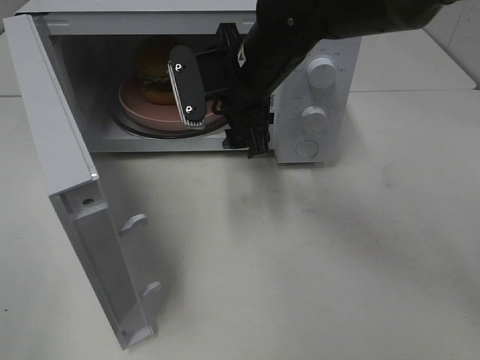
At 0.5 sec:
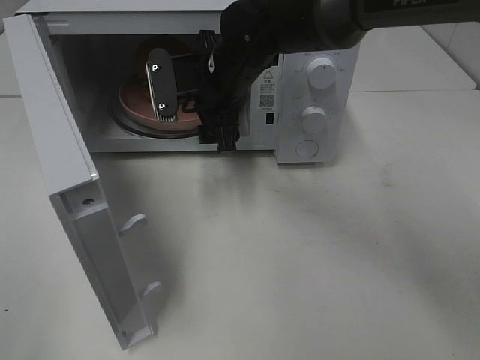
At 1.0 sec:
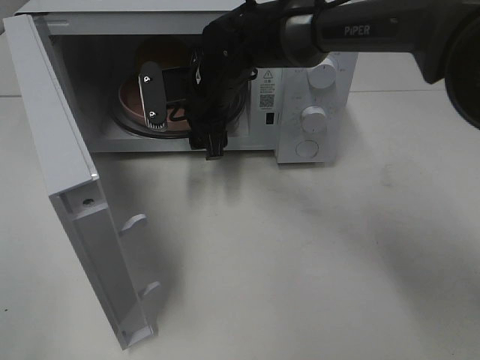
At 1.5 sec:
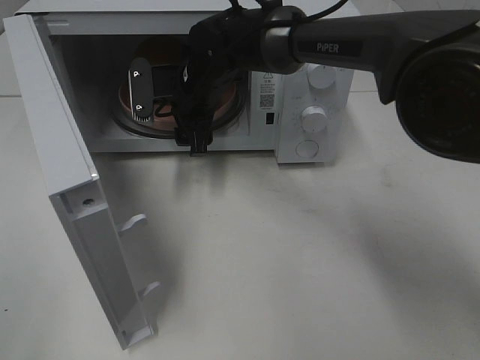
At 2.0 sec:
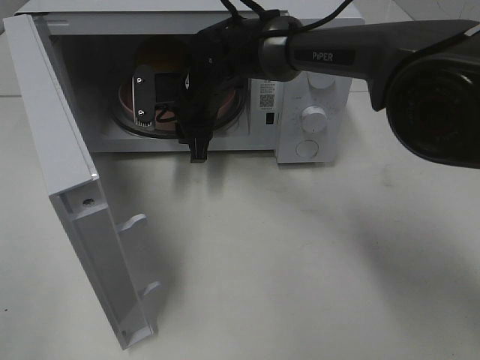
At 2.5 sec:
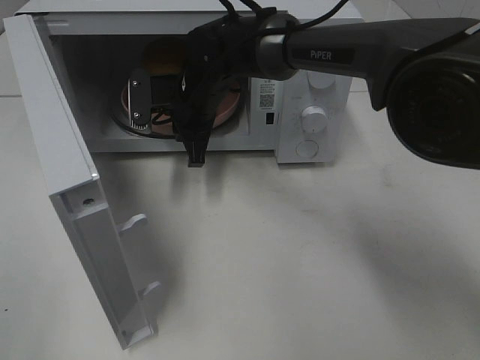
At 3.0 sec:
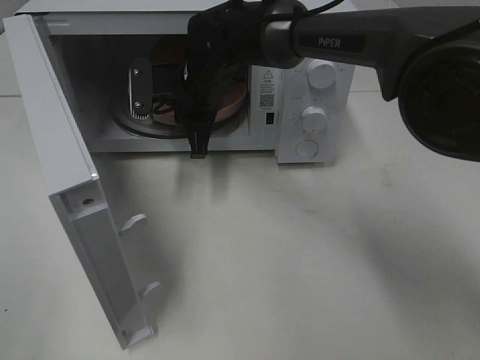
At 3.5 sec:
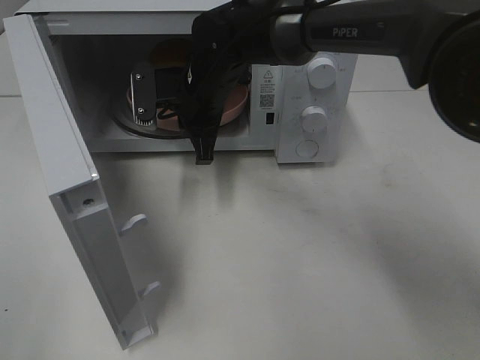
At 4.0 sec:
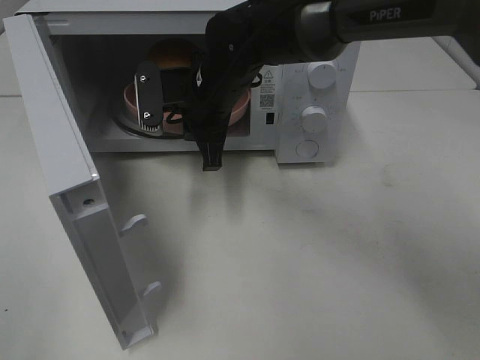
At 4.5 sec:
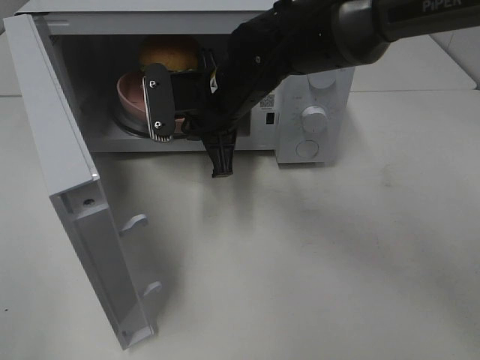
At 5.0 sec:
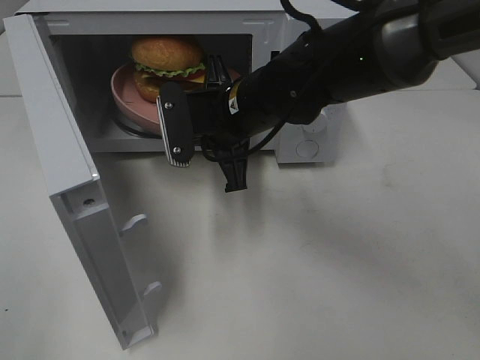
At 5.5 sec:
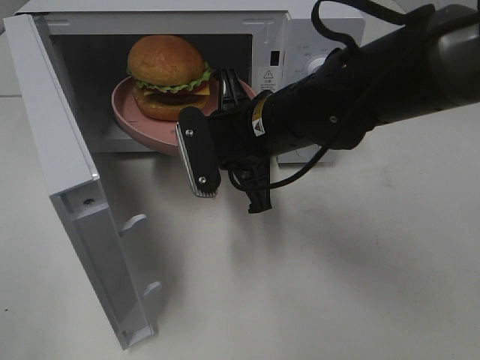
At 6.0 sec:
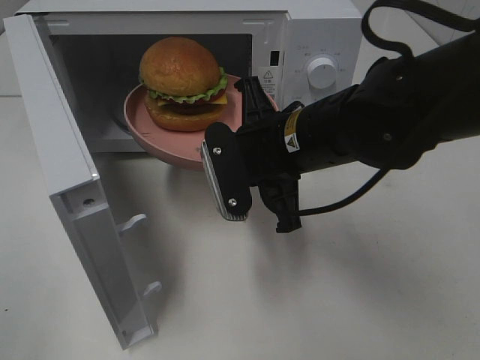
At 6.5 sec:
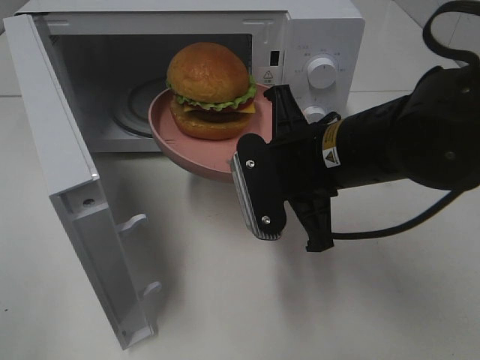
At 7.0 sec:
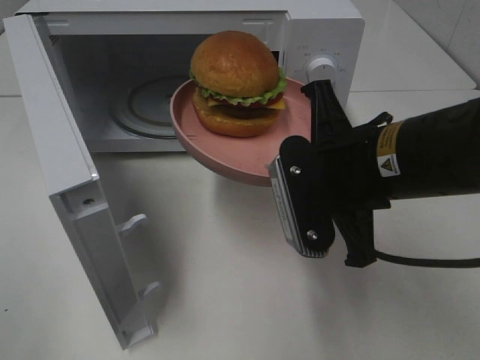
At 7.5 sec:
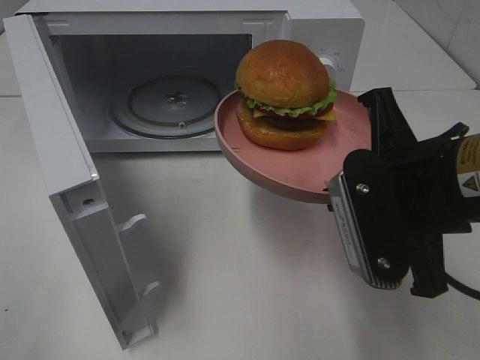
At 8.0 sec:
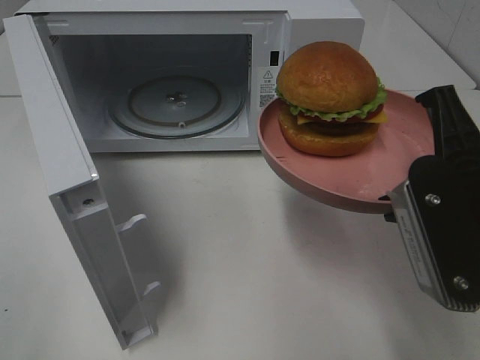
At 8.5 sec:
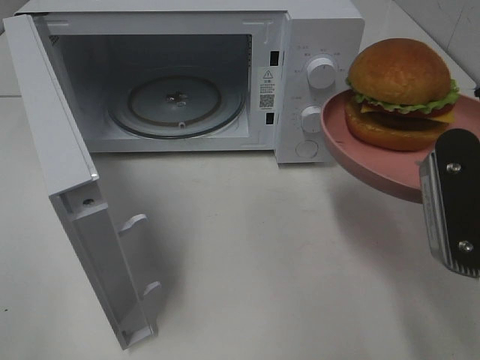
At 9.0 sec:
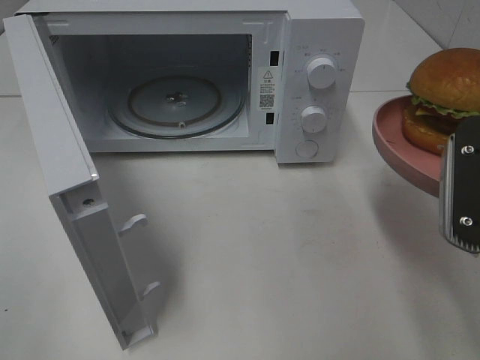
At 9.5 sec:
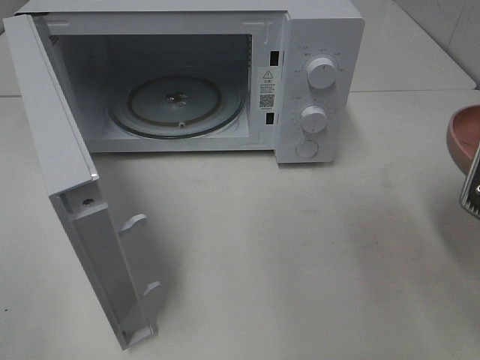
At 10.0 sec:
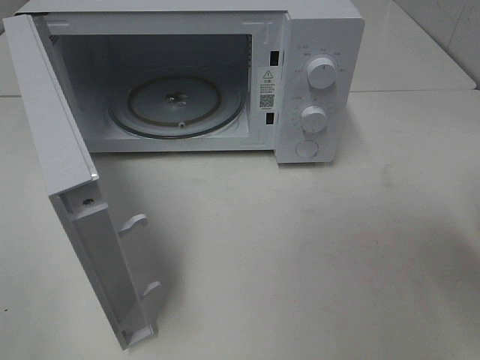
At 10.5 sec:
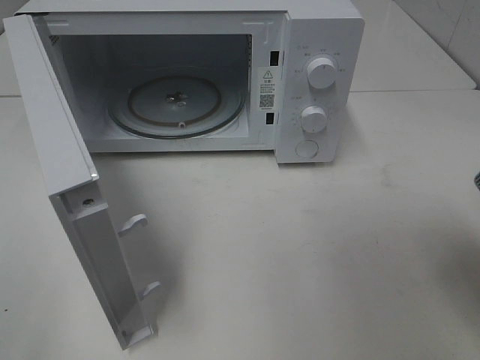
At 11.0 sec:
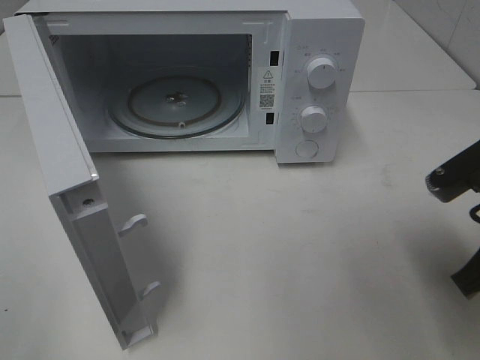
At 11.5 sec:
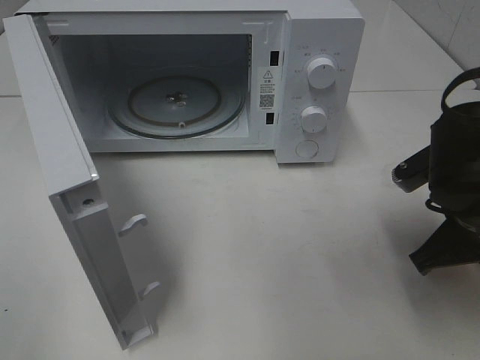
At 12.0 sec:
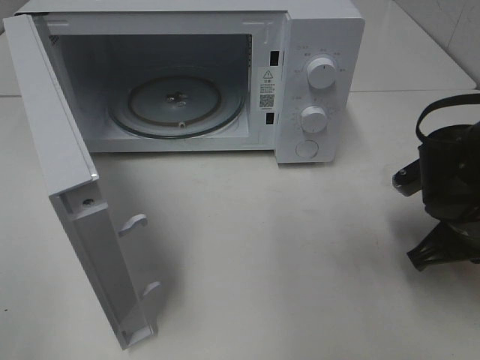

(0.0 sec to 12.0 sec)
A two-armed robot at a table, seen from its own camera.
Task of the whole recording: Heat the burger.
Step, 0.0 sec - 2.5 sec: Right hand: grab the plate with the hamburger.
0.0 sec - 2.0 sec: The right gripper shifts some 10 cm forward, downward and to the left, and closes up.
2.0 sec - 4.0 sec: The right gripper ends up approximately 5 cm from where it was, and closes up.
4.0 sec - 6.0 sec: The right gripper shifts approximately 15 cm backward and to the right.
6.0 sec - 8.0 sec: The right gripper is displaced to the right, backward and upward by some 20 cm.
8.0 sec - 10.0 sec: The right gripper shifts roughly 5 cm to the right.
10.0 sec - 12.0 sec: The right gripper heads downward and forward, covering about 15 cm.

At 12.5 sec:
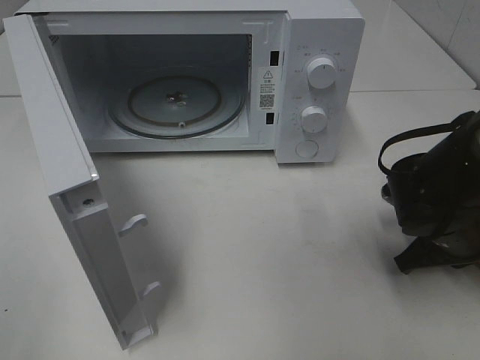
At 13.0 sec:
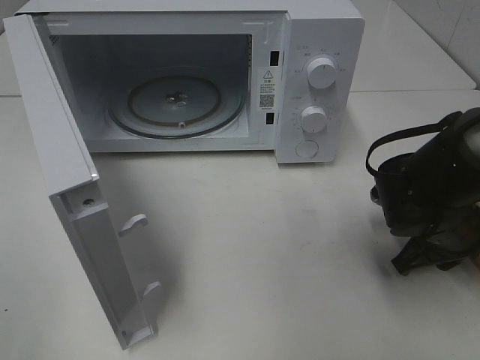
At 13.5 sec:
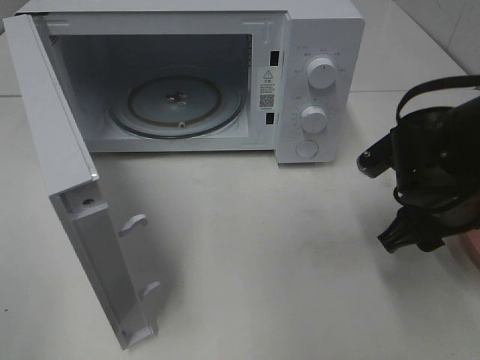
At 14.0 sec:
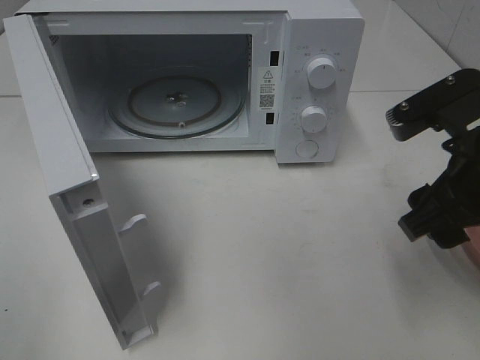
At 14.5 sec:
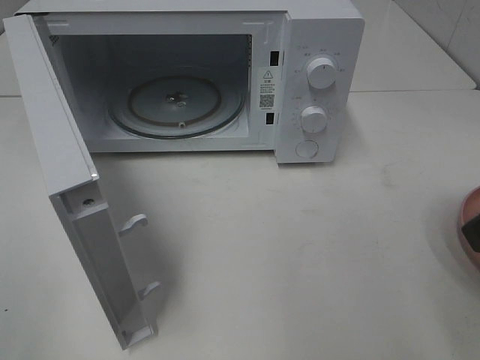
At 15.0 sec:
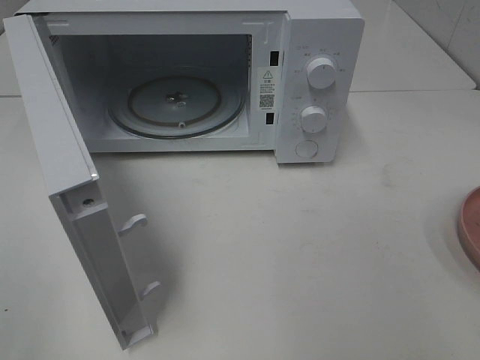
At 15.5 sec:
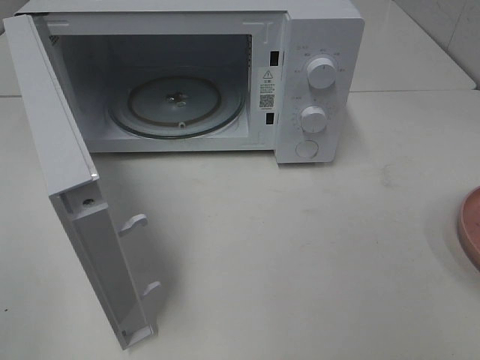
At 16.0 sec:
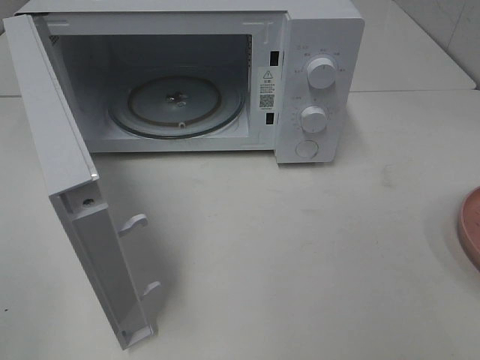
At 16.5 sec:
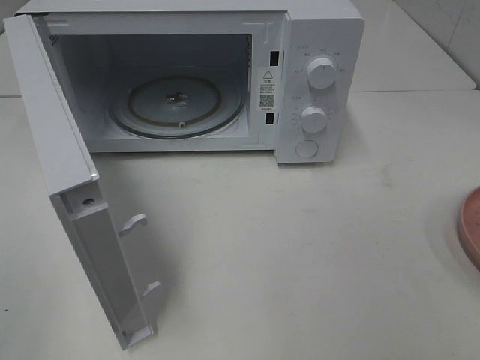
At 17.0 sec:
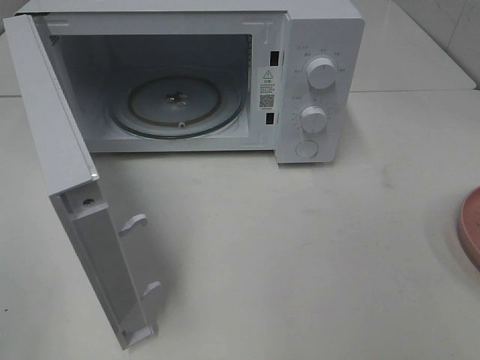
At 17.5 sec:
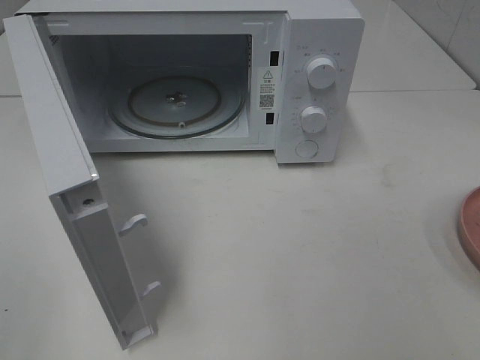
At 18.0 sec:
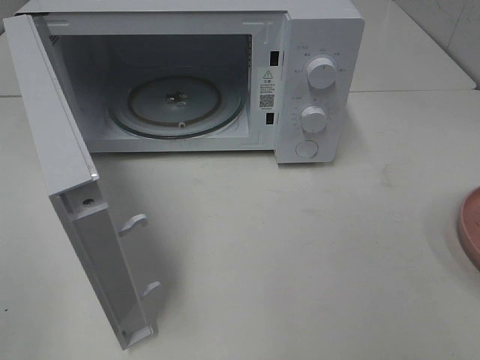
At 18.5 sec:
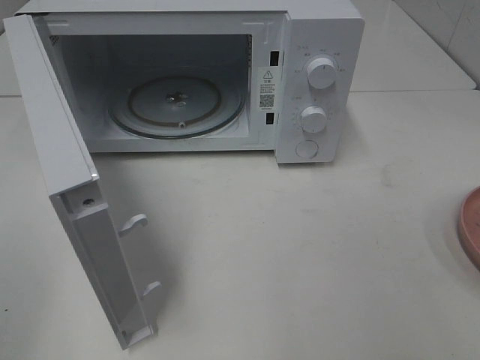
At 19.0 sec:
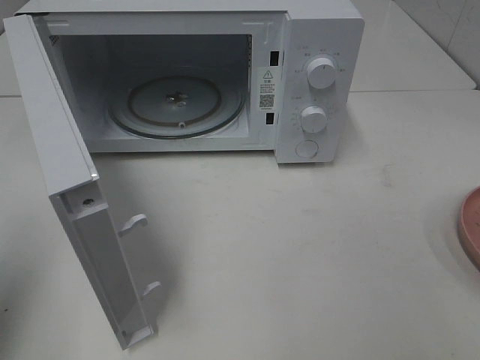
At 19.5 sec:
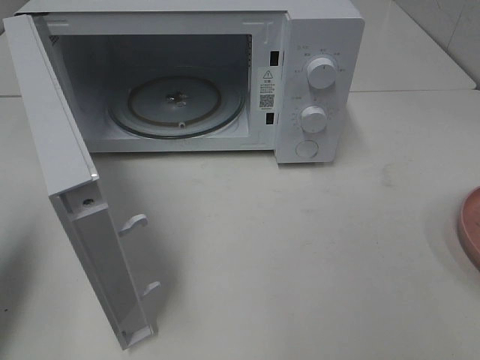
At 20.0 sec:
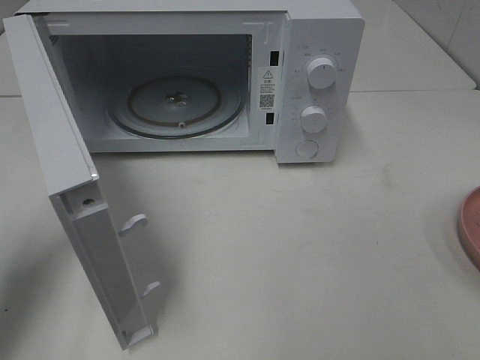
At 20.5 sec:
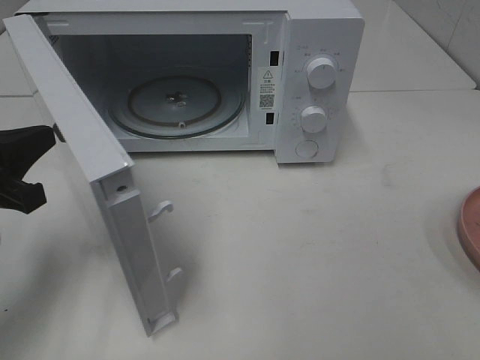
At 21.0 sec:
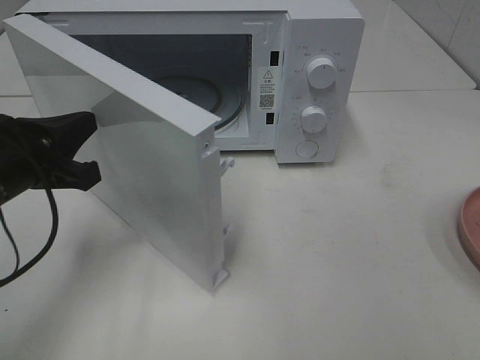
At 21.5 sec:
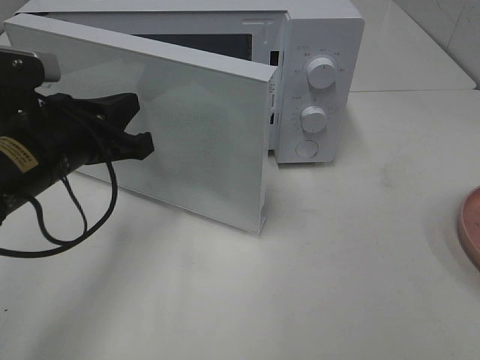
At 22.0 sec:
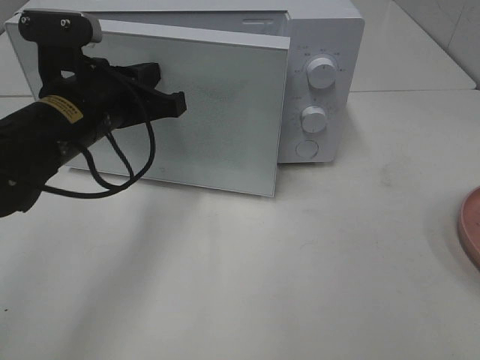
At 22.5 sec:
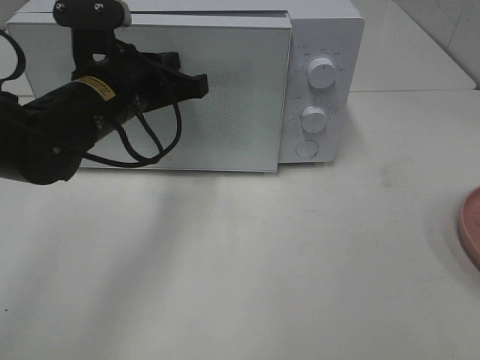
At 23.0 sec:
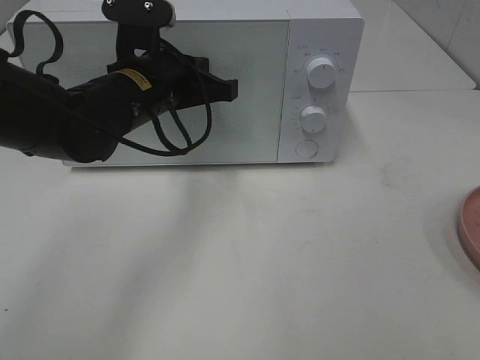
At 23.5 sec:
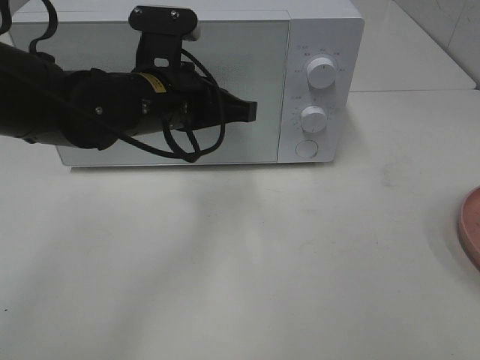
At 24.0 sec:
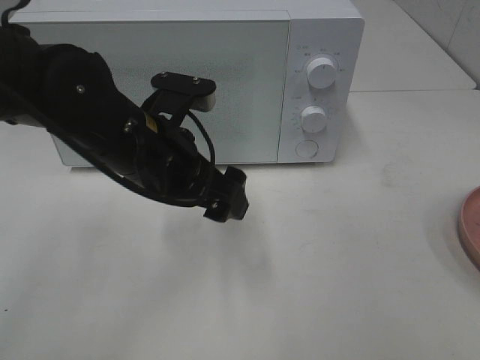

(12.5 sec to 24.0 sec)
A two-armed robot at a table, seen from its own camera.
Task of the whole recording: Heat the burger.
Step, 13.5 sec - 23.5 sec: Left hand: close the microwave door.
12.5 sec - 14.5 sec: The right gripper goes about 25 cm upward and backward, and opens.
14.5 sec - 16.5 sec: The right gripper goes about 15 cm backward and to the right.
18.5 sec - 20.0 sec: The left gripper moves forward and downward, some 20 cm, and closes.
20.0 sec - 22.0 sec: The left gripper is displaced to the right and forward by some 15 cm.
22.0 sec - 24.0 sec: The left gripper heads to the right, covering about 5 cm, and opens its fingers.

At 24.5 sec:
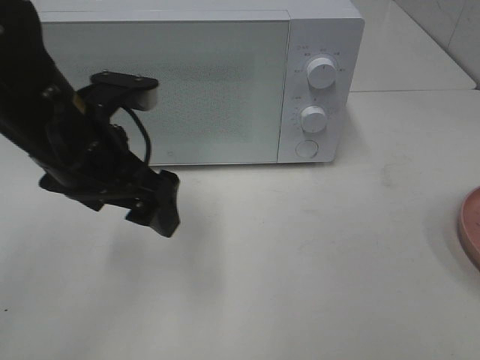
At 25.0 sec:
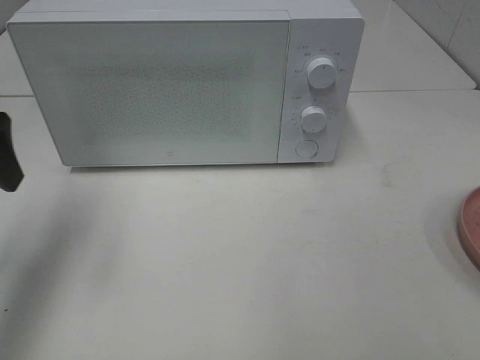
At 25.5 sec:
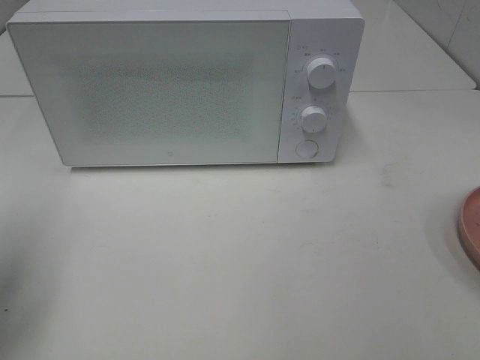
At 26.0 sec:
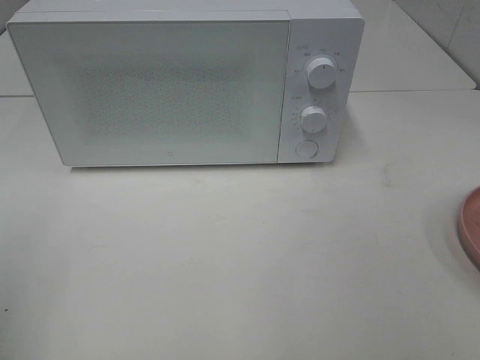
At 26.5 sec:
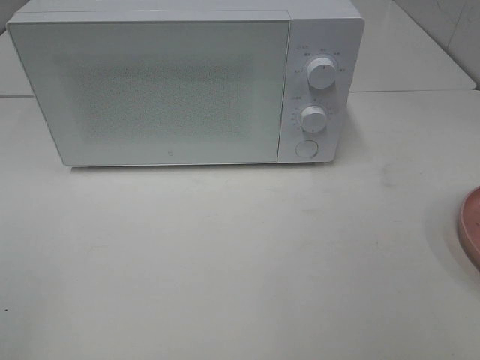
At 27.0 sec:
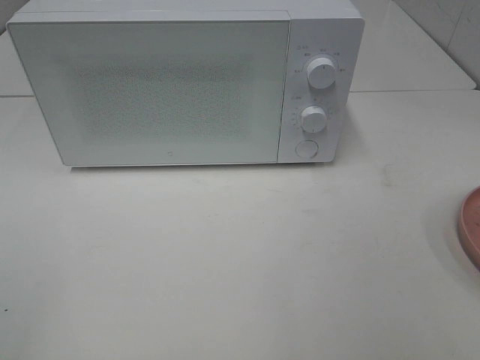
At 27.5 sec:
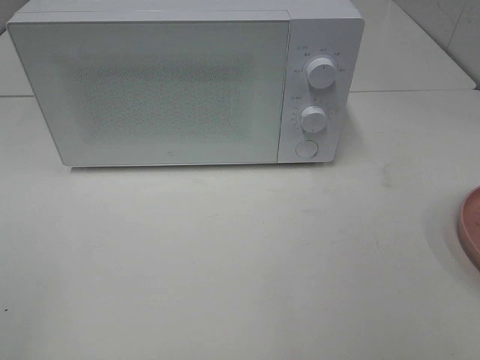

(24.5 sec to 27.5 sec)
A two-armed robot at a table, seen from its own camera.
Task of the whole recording: Heat the burger.
24.5 sec - 26.0 sec: The left gripper goes some 25 cm to the left and backward.
